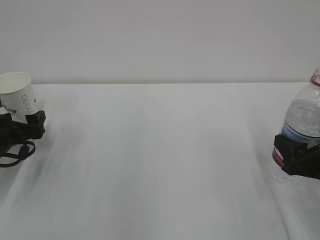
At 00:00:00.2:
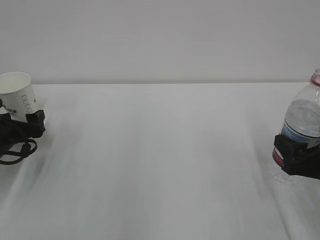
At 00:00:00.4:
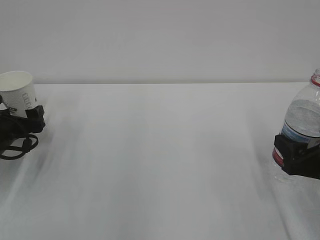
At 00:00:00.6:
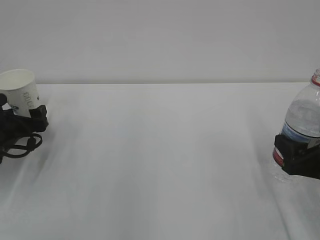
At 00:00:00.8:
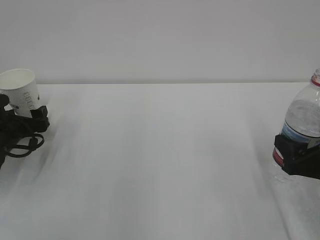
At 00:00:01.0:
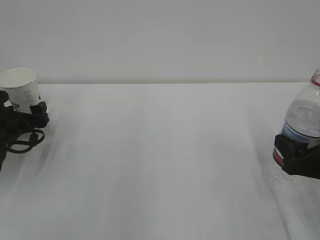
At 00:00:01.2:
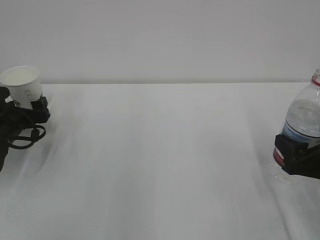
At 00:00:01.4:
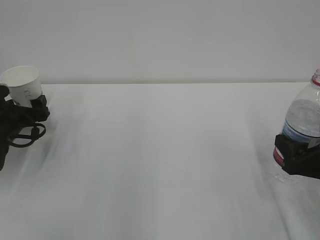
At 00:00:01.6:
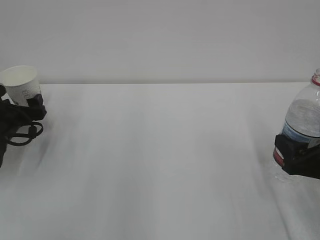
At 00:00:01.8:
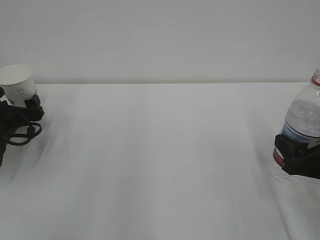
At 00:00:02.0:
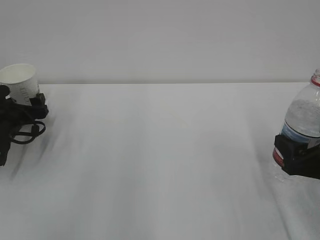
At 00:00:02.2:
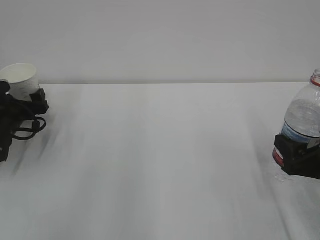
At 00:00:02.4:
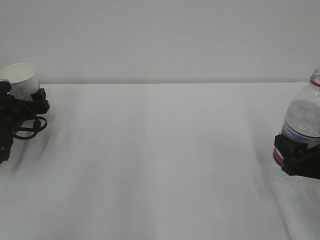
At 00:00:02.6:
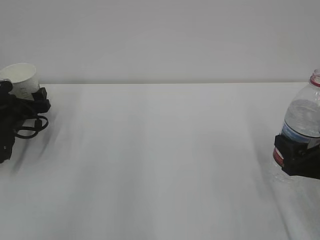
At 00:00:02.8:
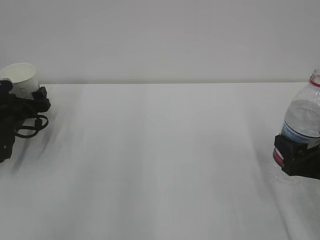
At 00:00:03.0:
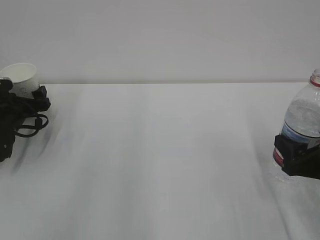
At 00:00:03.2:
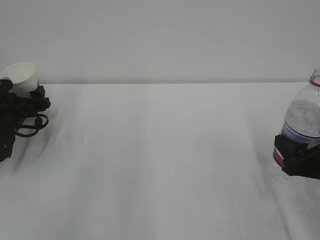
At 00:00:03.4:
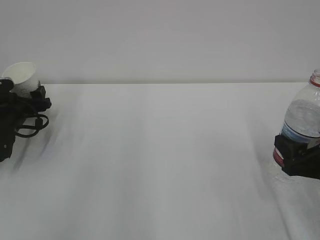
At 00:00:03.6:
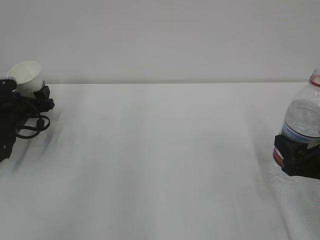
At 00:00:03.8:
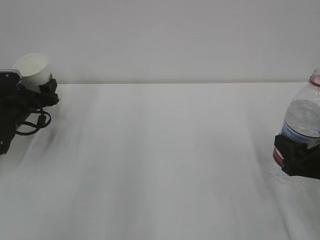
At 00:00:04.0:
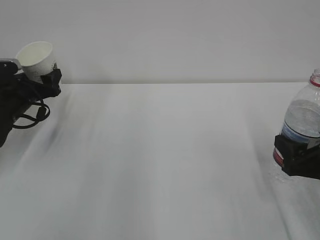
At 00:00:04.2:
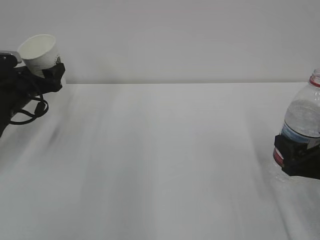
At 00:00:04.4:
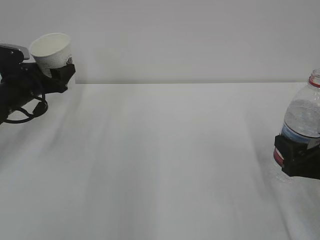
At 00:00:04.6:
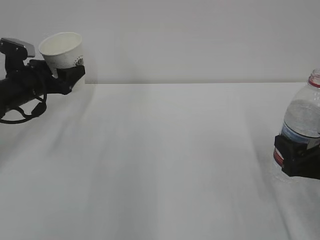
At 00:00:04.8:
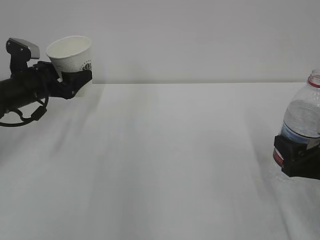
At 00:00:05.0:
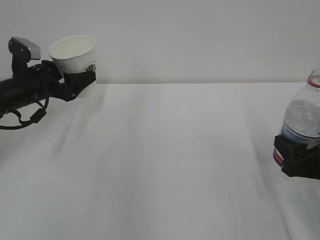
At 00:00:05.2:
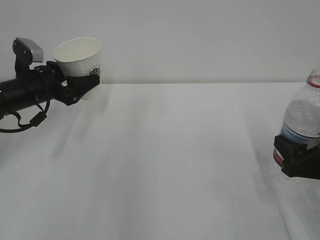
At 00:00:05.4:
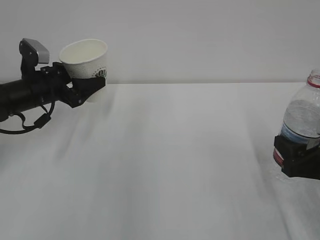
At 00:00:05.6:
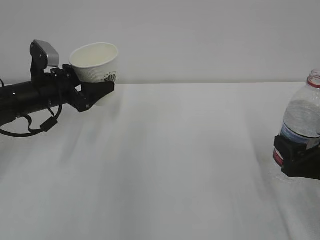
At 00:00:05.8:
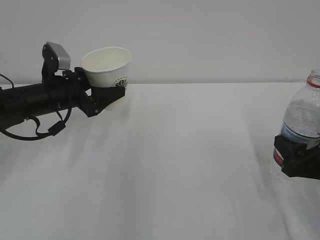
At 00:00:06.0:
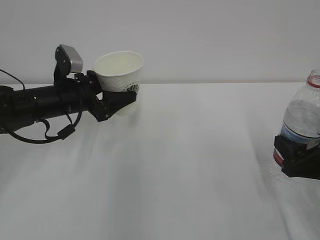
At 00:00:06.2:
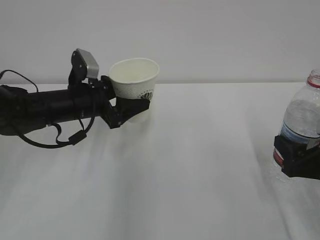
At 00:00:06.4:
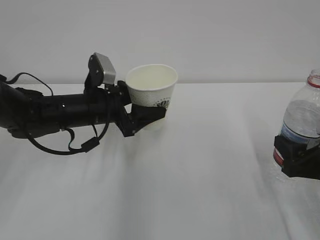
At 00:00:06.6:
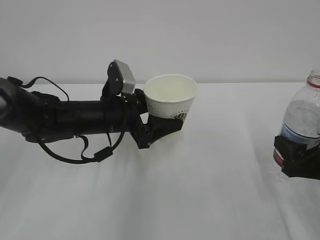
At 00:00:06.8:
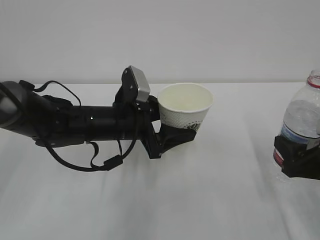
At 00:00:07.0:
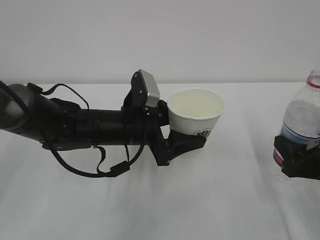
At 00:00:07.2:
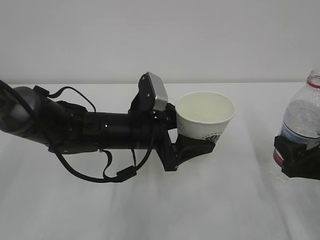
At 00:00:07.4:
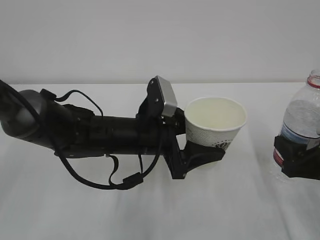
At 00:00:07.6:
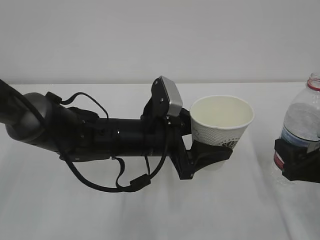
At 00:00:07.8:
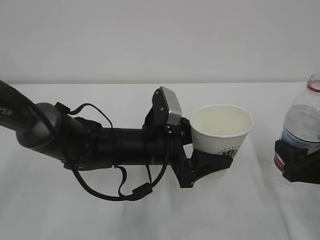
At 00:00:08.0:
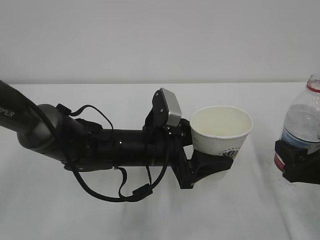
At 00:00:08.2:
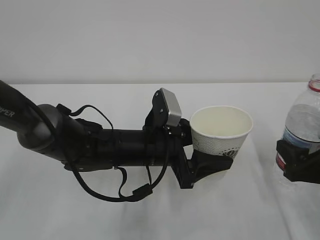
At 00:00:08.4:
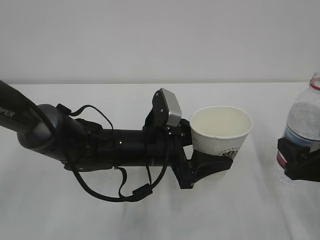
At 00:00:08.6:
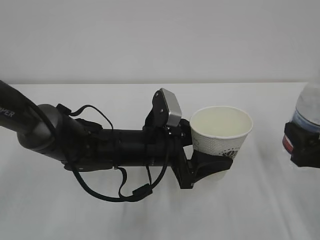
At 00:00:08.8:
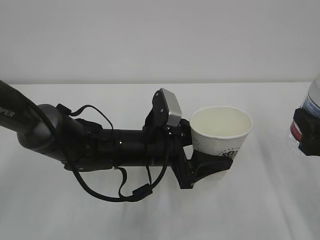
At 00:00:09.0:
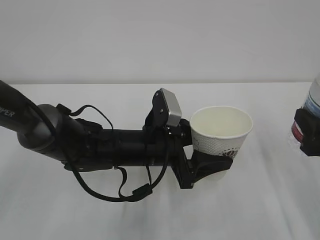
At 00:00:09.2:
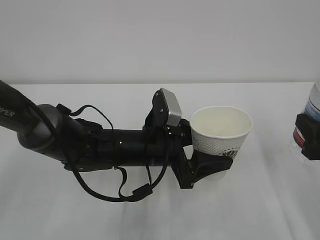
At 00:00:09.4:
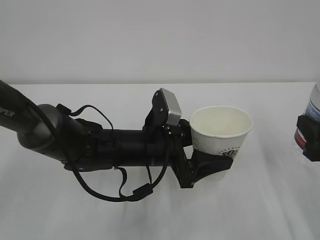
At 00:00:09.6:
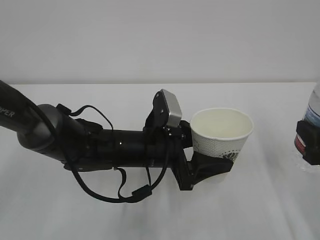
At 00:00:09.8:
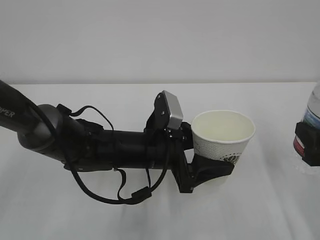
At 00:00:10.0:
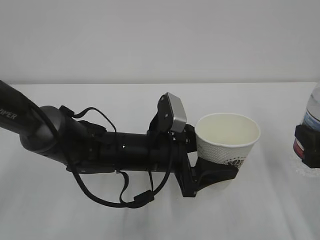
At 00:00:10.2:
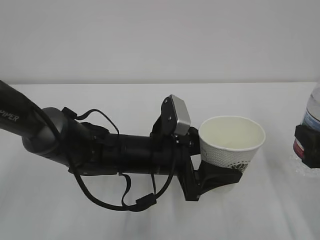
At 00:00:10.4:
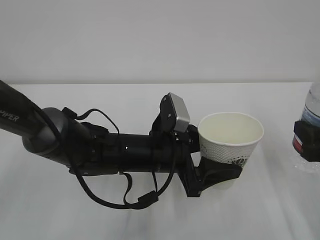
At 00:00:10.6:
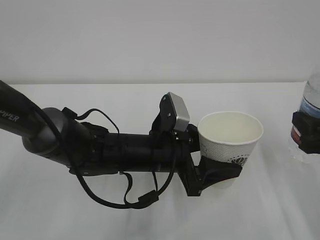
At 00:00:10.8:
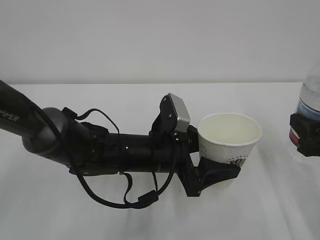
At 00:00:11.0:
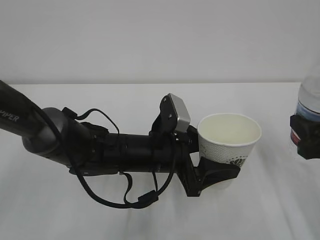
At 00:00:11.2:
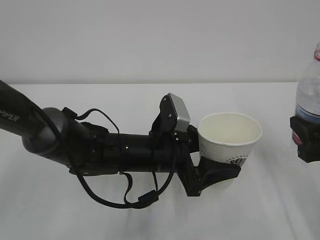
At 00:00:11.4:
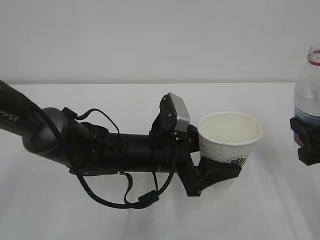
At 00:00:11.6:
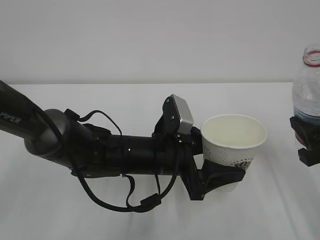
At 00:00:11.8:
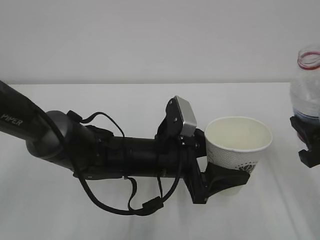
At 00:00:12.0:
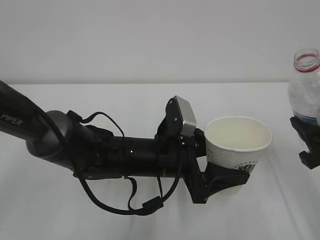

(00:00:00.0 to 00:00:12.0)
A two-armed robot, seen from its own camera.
00:00:00.0 - 00:00:01.6: The left gripper travels forward by about 5 cm.
00:00:01.6 - 00:00:03.0: The grippers move only a little.
00:00:03.0 - 00:00:04.4: The left gripper shifts about 5 cm upward, and closes up.
00:00:04.4 - 00:00:06.0: The left gripper is displaced to the right by roughly 10 cm.
00:00:06.0 - 00:00:07.6: The left gripper is displaced to the right and backward by some 20 cm.
00:00:07.6 - 00:00:10.4: The grippers stay close to where they were, moving slightly.

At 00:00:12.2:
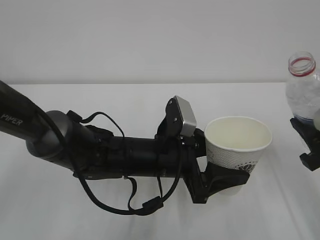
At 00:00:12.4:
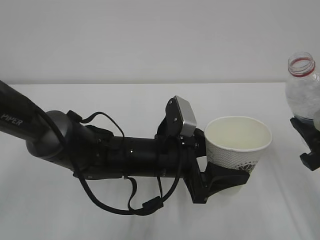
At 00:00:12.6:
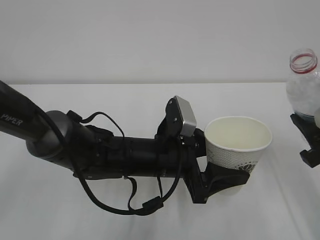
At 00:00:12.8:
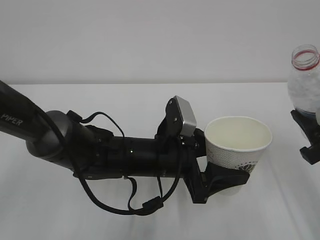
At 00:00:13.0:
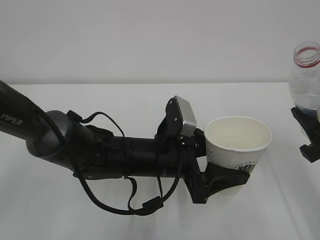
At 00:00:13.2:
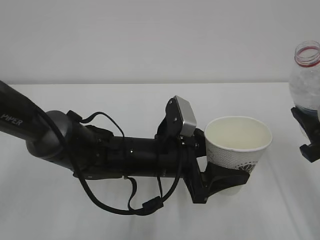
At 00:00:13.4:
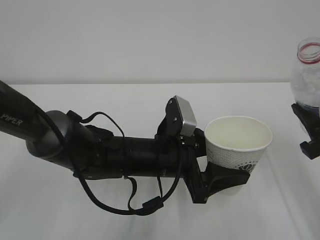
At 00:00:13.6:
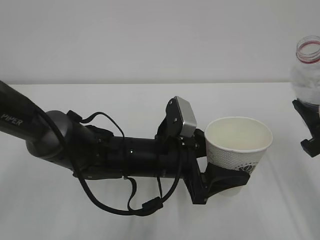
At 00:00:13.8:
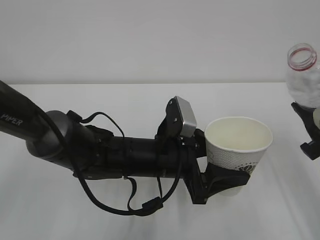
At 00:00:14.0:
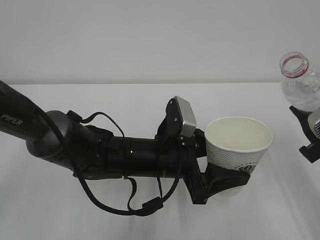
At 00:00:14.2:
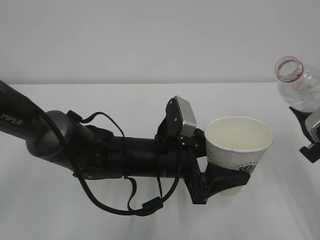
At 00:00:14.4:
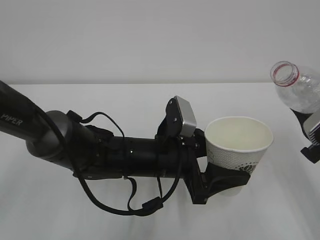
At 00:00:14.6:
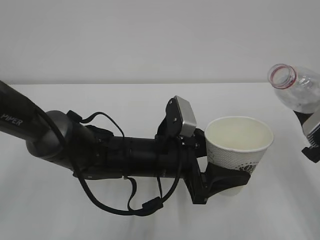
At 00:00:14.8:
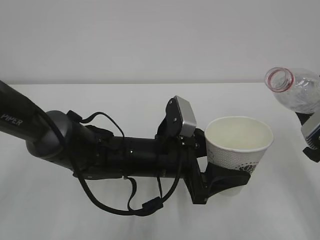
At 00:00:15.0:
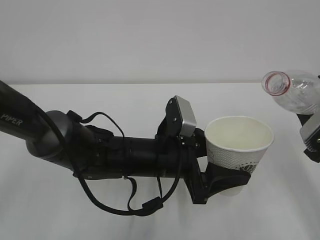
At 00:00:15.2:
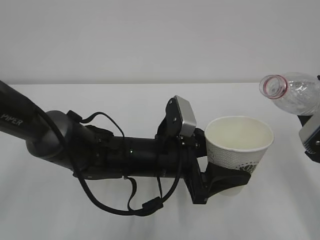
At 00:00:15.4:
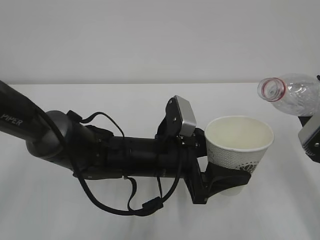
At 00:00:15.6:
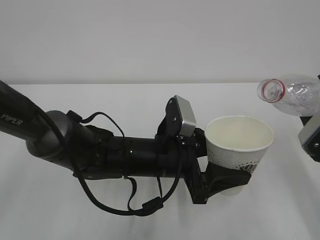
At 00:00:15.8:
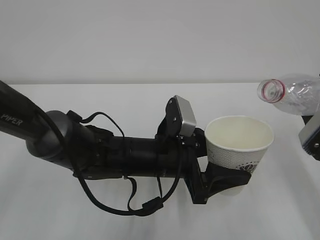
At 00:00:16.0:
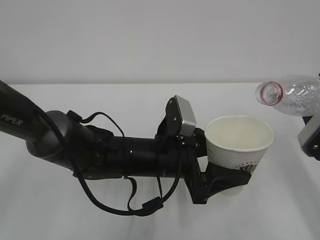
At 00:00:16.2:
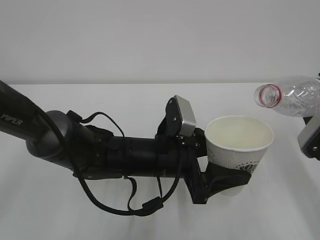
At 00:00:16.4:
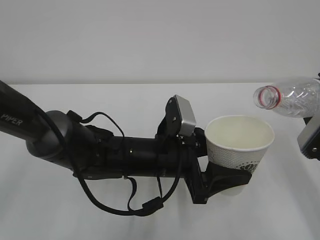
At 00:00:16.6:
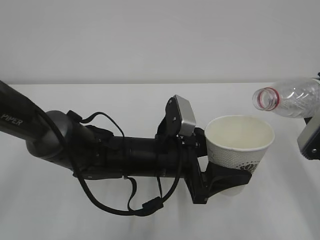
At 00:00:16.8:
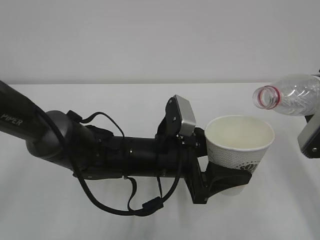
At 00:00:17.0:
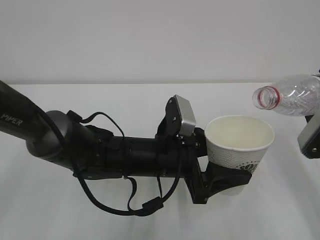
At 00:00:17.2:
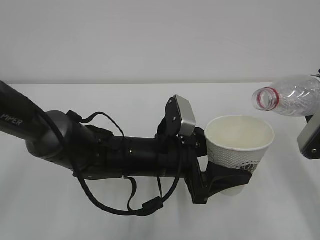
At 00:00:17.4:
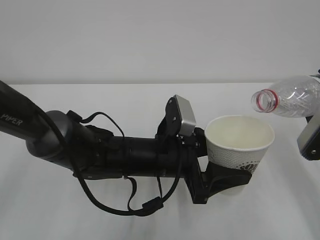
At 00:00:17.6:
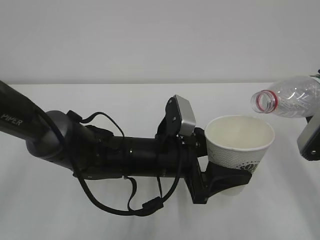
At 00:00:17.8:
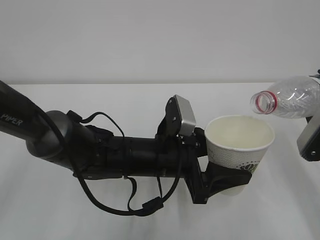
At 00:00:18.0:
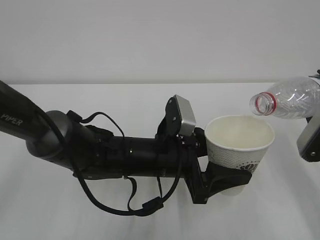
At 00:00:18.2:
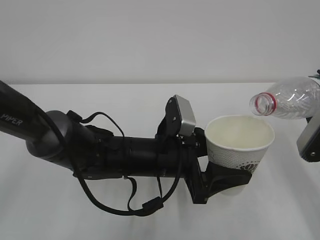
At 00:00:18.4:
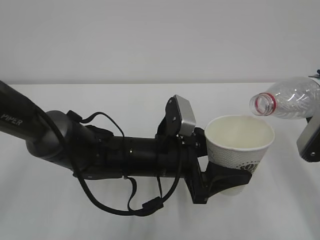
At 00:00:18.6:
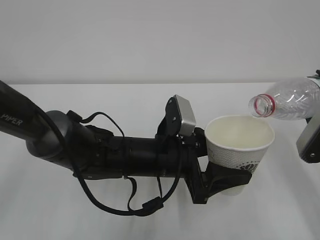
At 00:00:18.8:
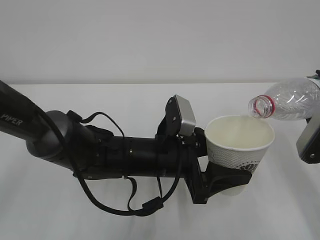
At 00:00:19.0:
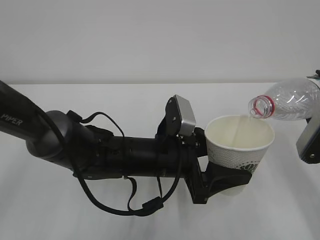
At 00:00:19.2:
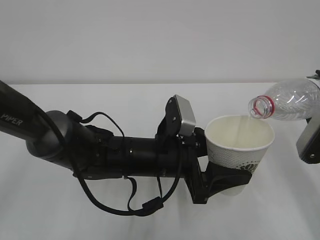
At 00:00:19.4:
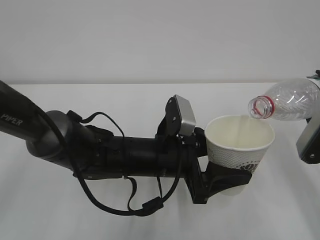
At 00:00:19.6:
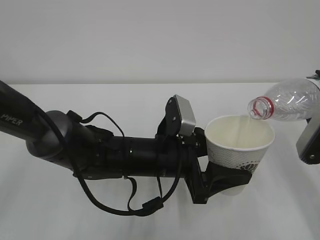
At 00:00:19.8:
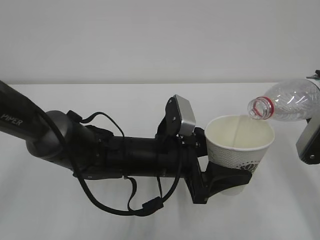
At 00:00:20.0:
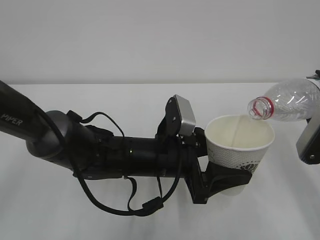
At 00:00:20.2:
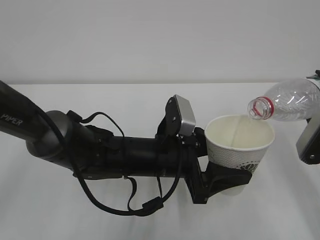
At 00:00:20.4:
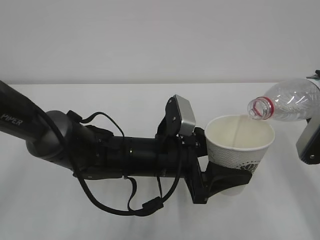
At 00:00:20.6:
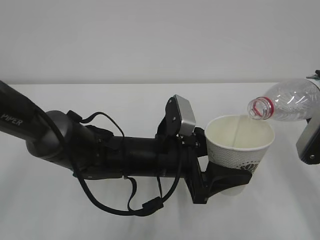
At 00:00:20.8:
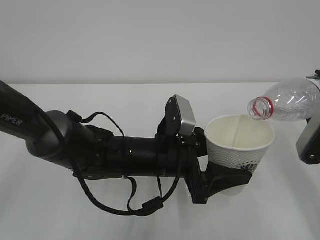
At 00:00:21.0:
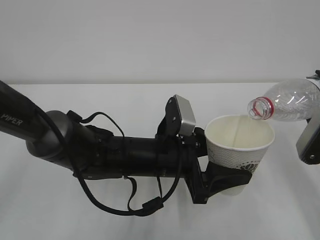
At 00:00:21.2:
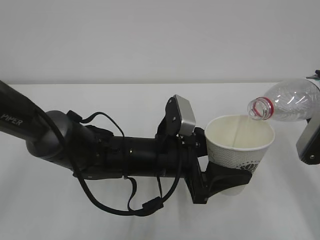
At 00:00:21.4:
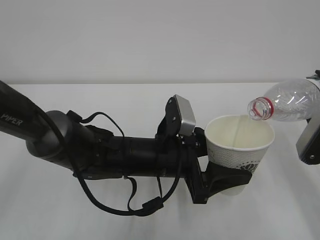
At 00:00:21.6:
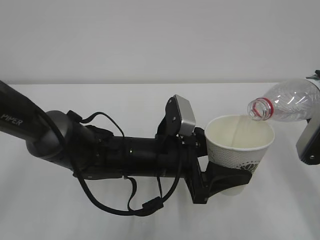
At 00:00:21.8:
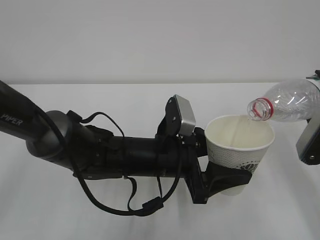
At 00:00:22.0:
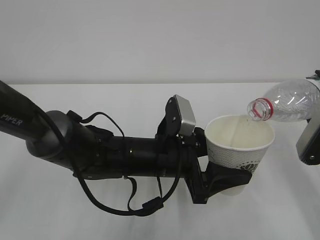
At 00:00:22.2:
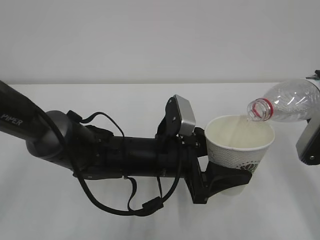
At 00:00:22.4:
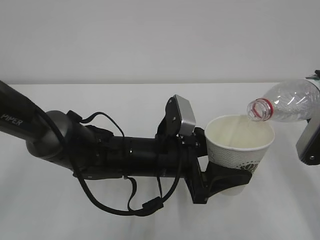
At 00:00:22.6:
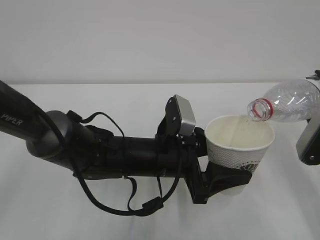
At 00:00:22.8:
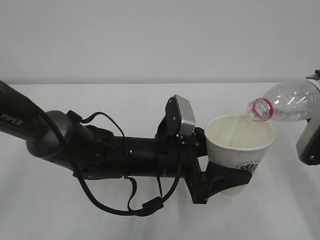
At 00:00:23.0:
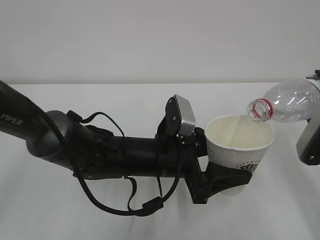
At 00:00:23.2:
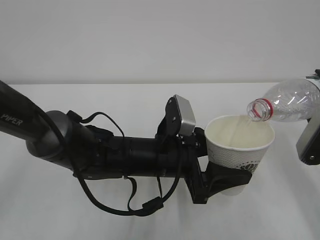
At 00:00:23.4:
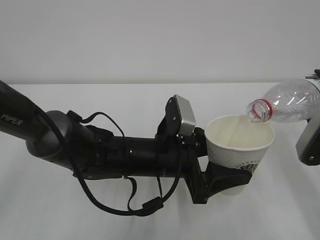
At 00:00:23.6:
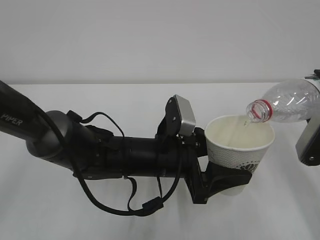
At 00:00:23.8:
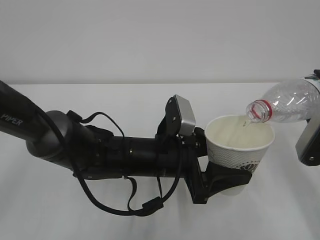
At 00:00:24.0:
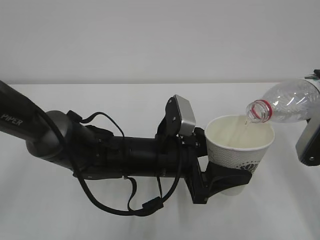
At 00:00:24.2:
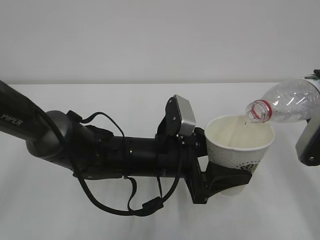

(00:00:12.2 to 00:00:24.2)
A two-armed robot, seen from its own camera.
00:00:12.2 - 00:00:13.8: The grippers stay close to where they were, moving slightly.
00:00:15.2 - 00:00:16.6: The grippers move only a little.
00:00:18.2 - 00:00:22.6: Both grippers stay put.
00:00:22.6 - 00:00:24.2: Both grippers stay about where they are.
